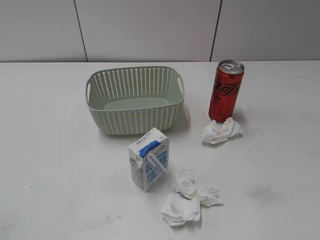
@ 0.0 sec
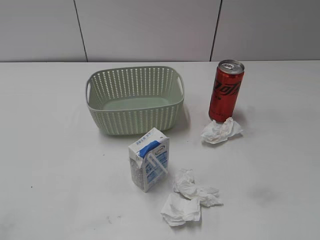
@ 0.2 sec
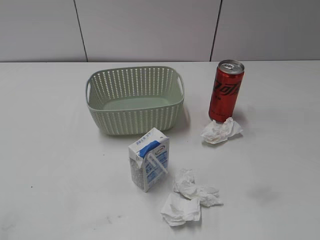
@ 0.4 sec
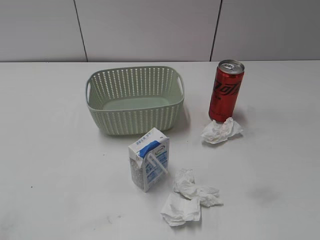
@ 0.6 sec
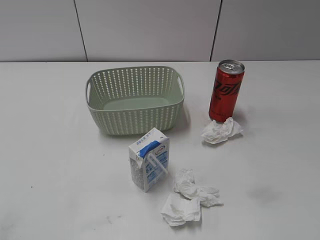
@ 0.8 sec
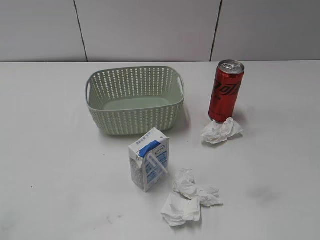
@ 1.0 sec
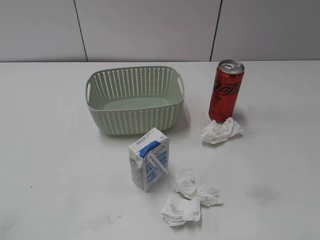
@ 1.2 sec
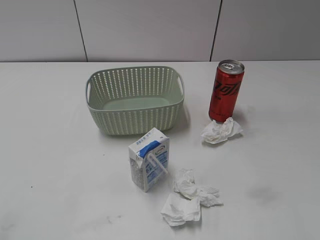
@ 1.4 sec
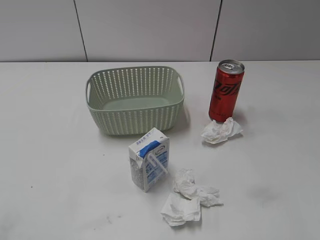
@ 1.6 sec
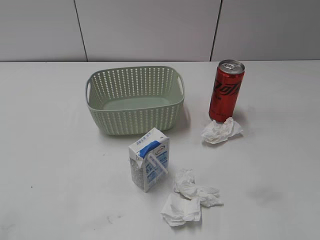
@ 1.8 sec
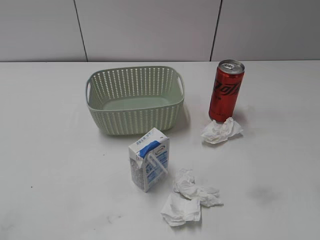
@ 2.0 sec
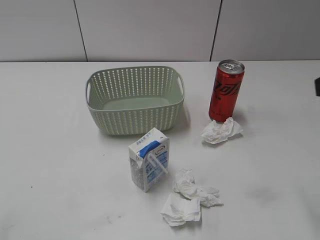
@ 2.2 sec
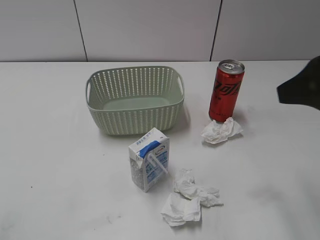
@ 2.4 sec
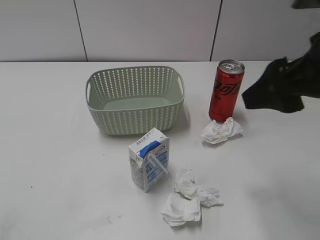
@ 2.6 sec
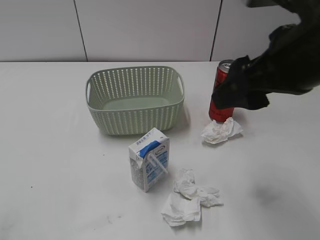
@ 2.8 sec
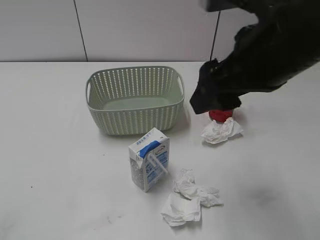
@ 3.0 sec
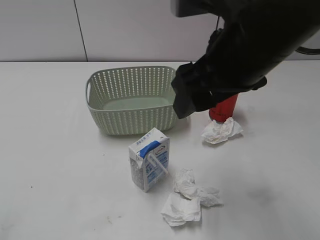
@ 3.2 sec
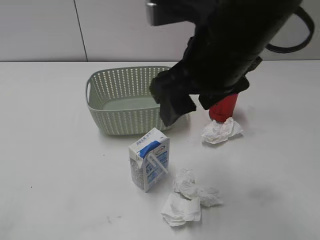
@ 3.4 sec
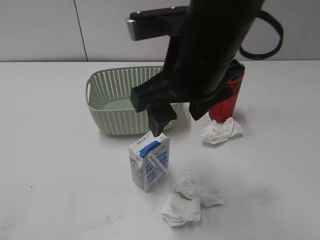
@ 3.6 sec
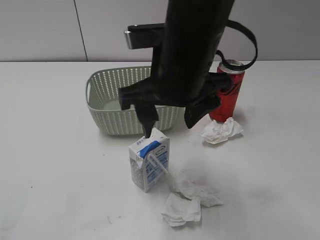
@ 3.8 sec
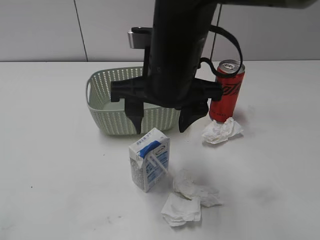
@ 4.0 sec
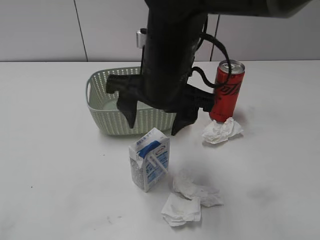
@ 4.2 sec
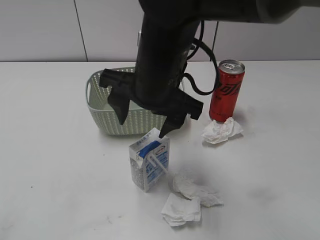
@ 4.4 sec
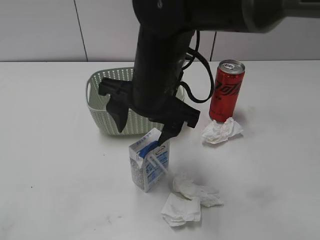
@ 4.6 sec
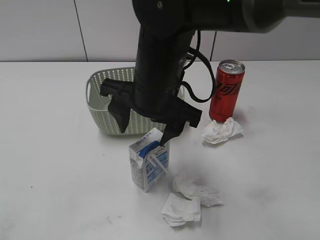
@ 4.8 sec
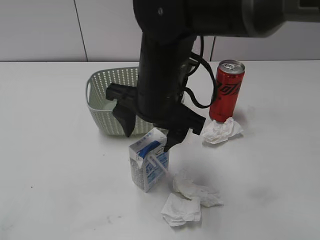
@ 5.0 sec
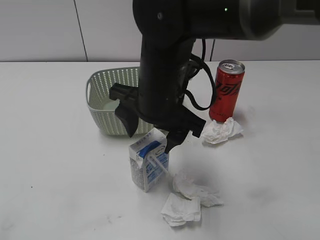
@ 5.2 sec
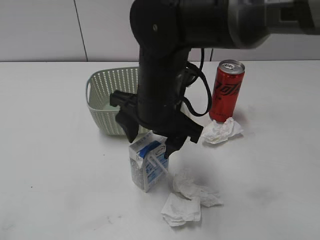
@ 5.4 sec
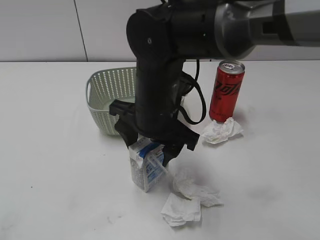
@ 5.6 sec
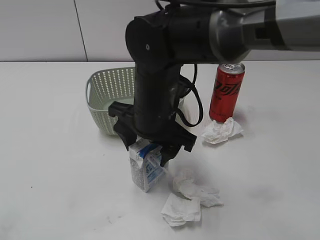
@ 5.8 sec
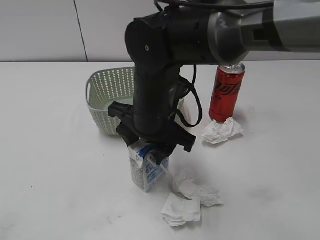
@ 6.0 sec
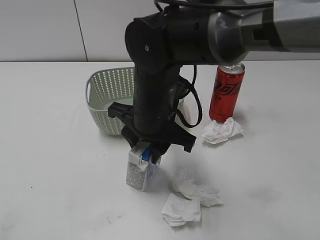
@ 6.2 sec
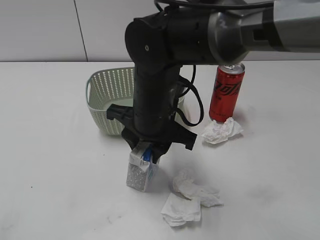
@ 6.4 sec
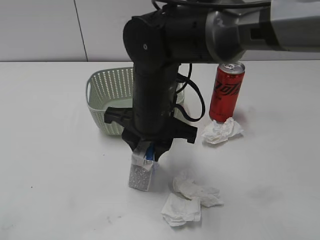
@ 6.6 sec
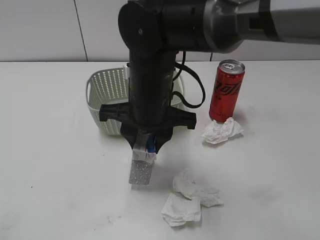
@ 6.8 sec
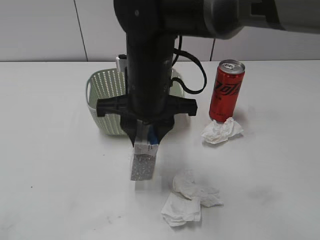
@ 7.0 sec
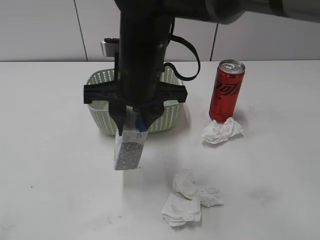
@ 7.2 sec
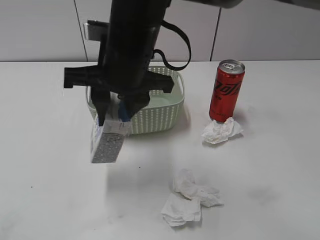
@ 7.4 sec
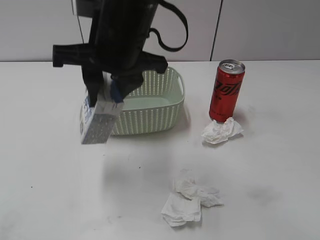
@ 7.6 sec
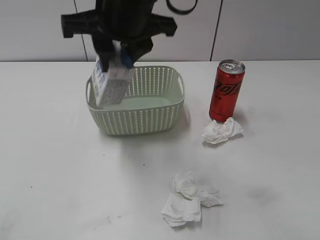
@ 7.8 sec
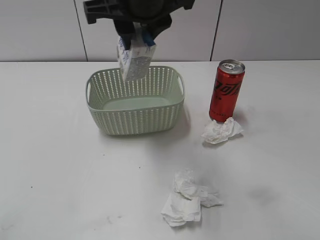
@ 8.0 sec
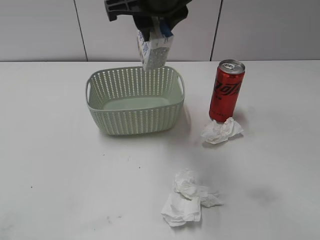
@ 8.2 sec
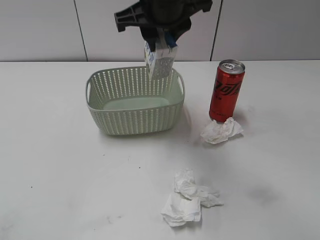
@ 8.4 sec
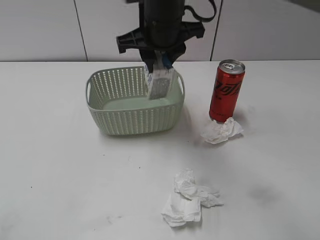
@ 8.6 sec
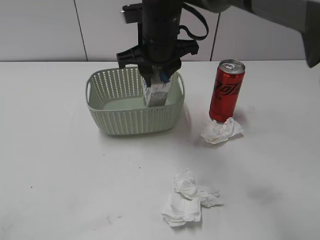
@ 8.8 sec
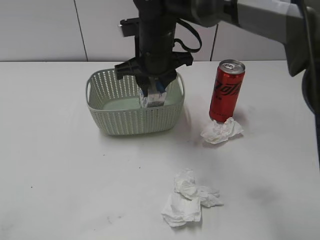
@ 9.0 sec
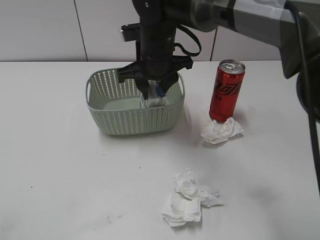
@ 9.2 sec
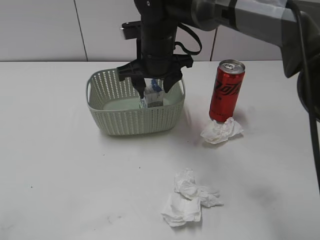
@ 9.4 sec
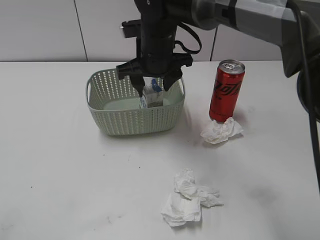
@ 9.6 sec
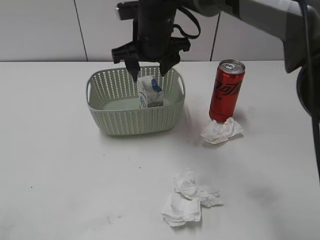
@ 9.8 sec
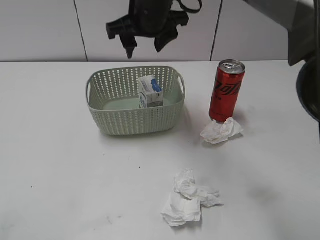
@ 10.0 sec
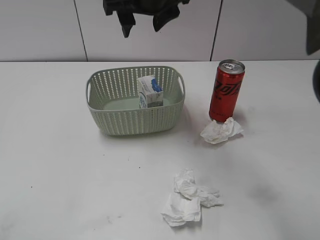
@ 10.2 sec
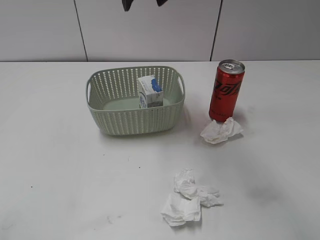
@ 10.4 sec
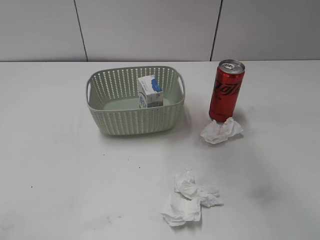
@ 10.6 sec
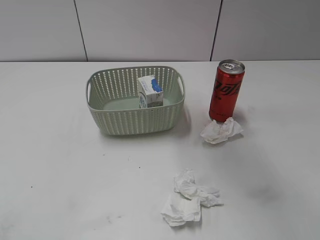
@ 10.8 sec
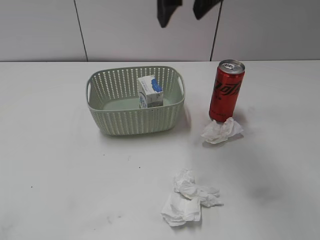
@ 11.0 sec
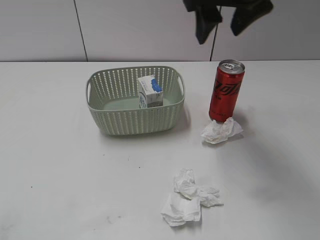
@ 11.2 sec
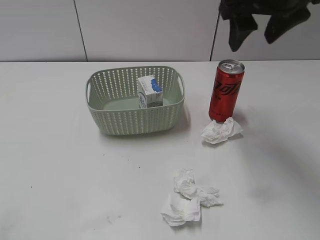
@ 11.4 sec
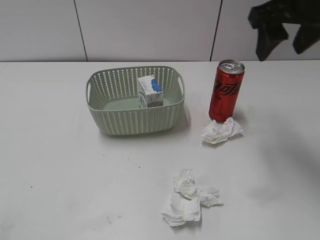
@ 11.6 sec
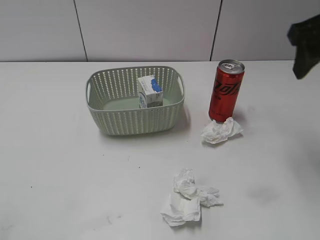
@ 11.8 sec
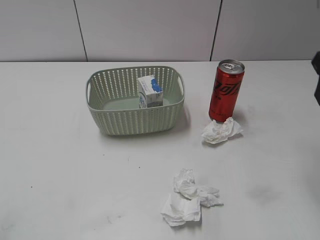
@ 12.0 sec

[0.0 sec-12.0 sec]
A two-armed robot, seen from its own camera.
Step, 2.2 sec to 6.2 sec: Grasp the milk with right gripper.
1.6 sec to 3.0 sec: The right gripper heads to the left and forward, covering roughly 20 cm.
3.0 sec to 4.4 sec: The right gripper is displaced to the left and downward by roughly 15 cm.
4.4 sec to 6.0 sec: The right gripper heads downward, covering about 5 cm.
6.0 sec to 7.6 sec: The right gripper shifts roughly 10 cm upward, and closes up.
7.6 sec to 9.0 sec: The right gripper moves forward and downward, some 10 cm.
9.0 sec to 10.4 sec: The right gripper moves upward, some 15 cm, and opens its fingers.
10.4 sec to 12.0 sec: The right gripper travels to the right and backward by approximately 30 cm.
